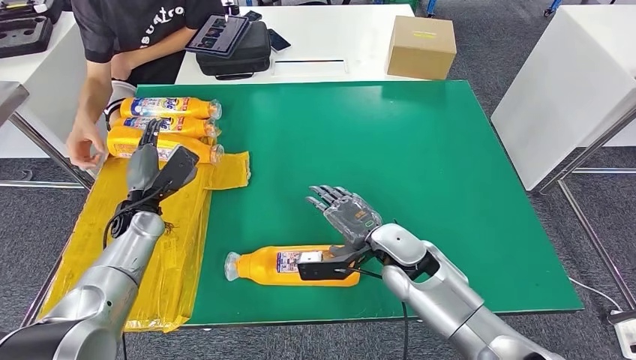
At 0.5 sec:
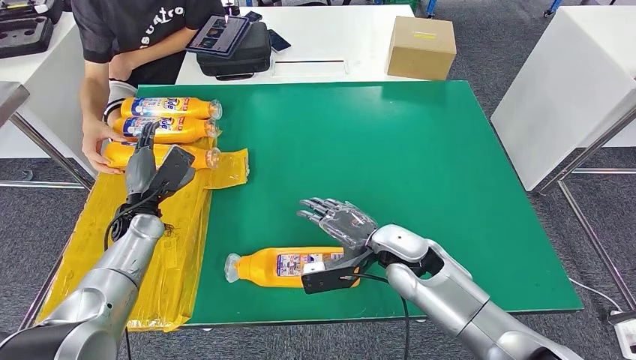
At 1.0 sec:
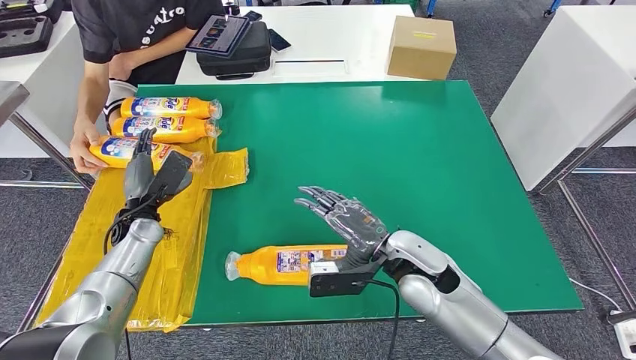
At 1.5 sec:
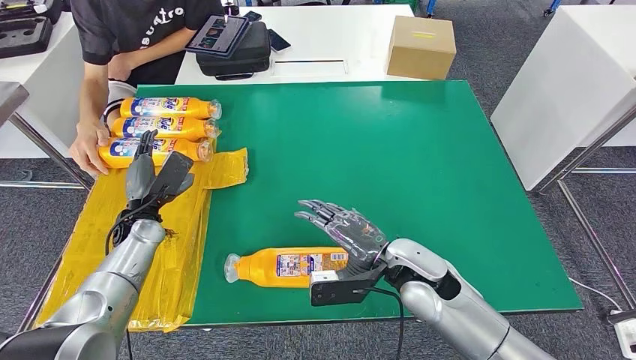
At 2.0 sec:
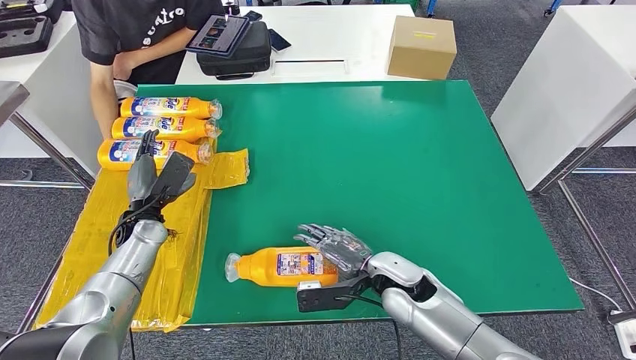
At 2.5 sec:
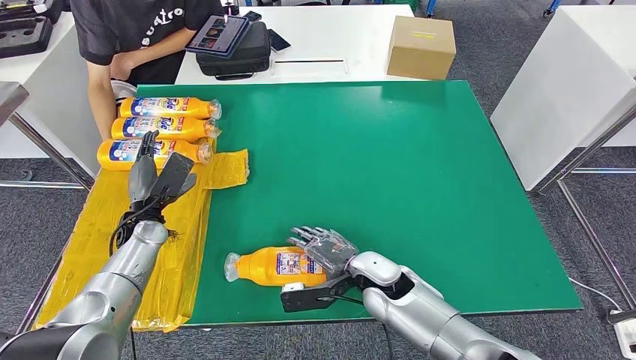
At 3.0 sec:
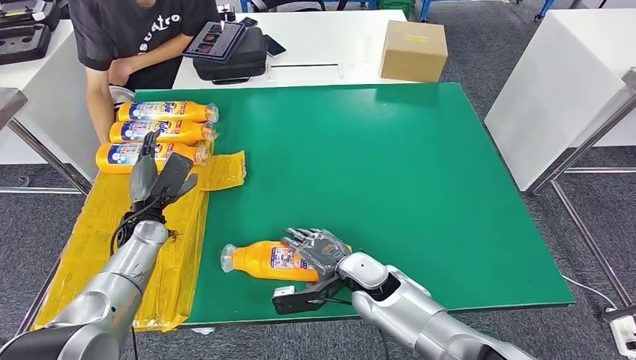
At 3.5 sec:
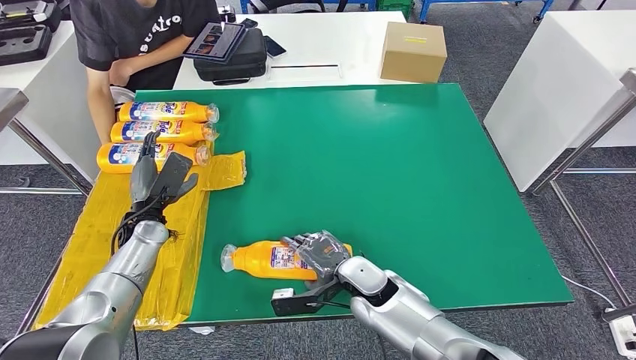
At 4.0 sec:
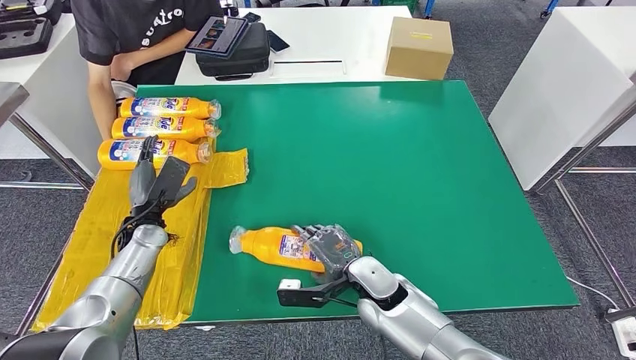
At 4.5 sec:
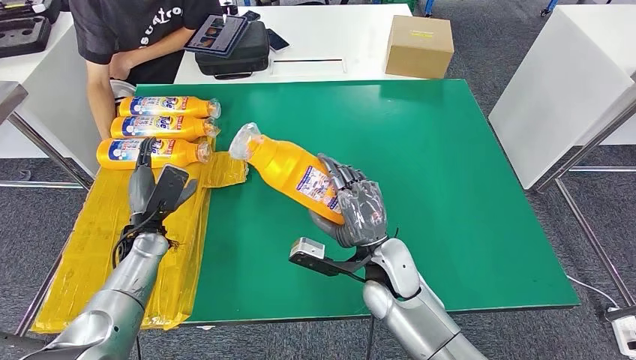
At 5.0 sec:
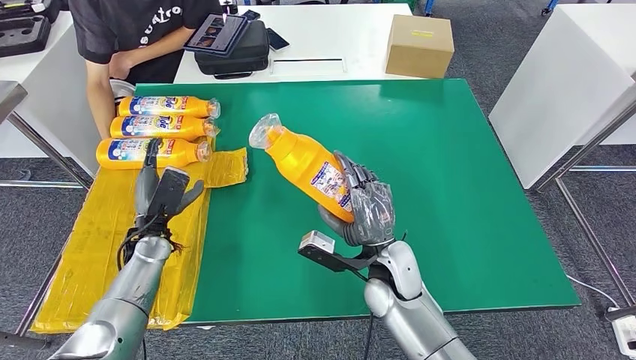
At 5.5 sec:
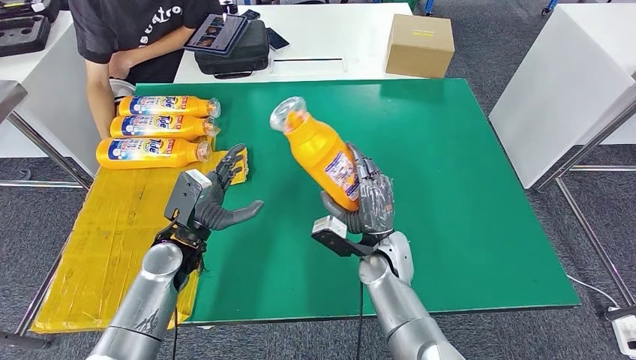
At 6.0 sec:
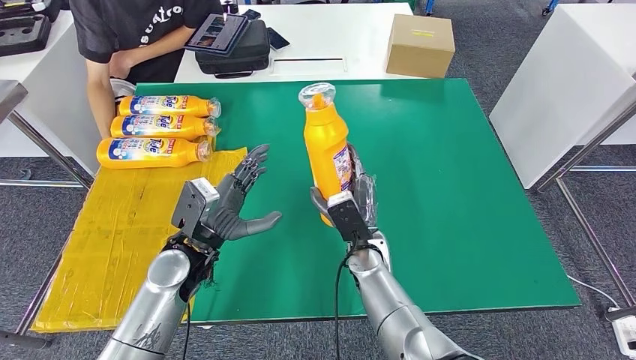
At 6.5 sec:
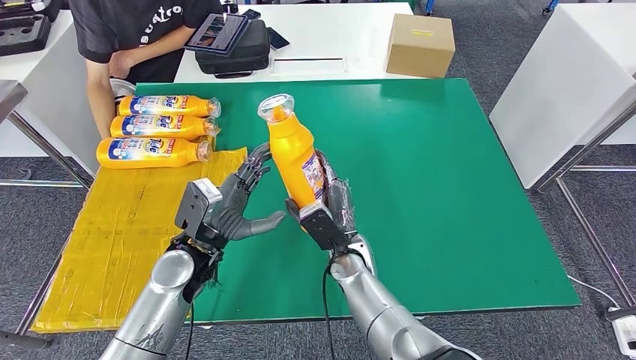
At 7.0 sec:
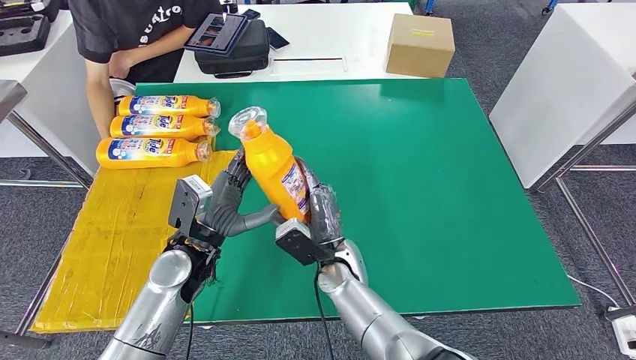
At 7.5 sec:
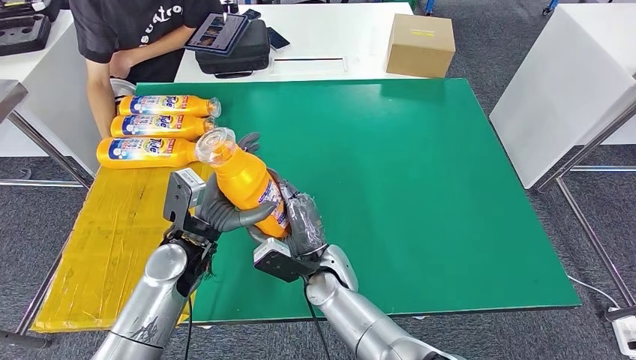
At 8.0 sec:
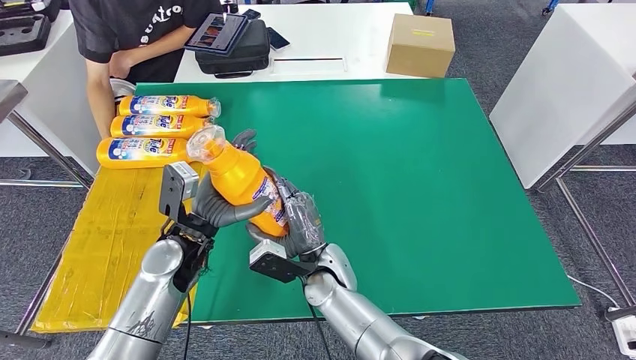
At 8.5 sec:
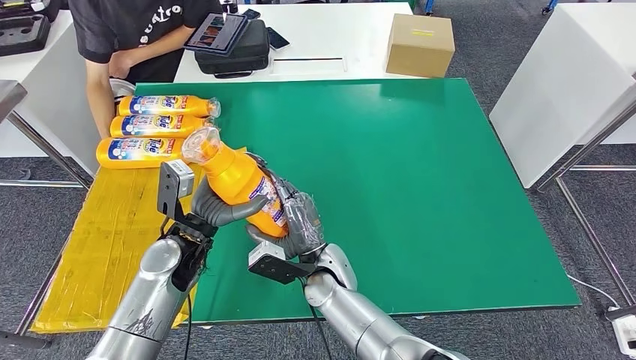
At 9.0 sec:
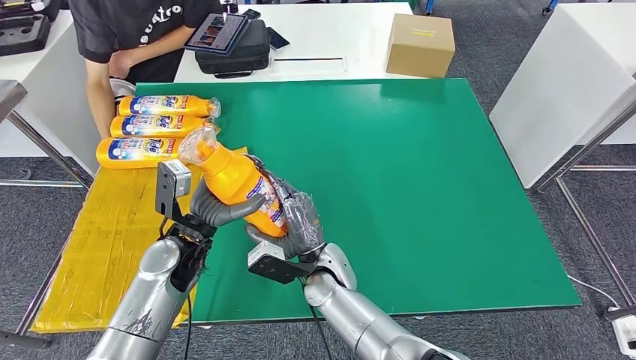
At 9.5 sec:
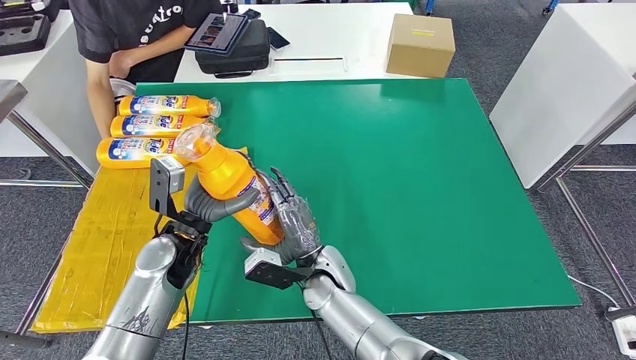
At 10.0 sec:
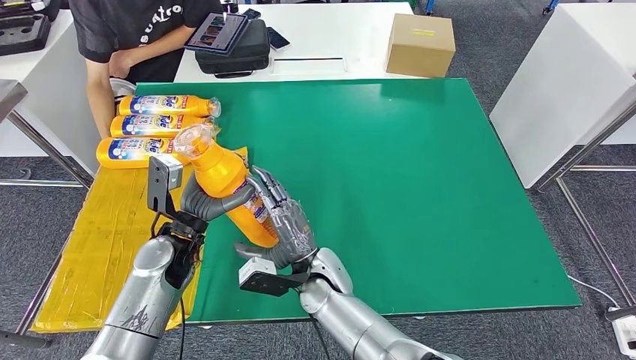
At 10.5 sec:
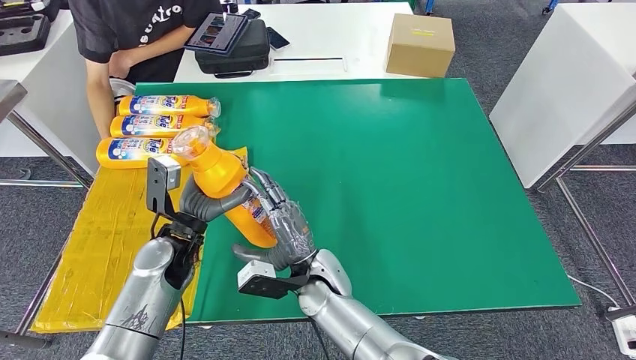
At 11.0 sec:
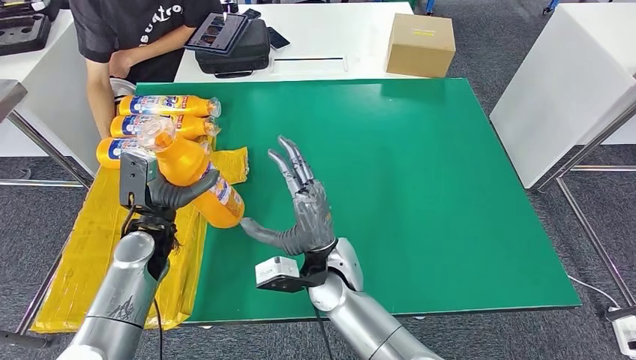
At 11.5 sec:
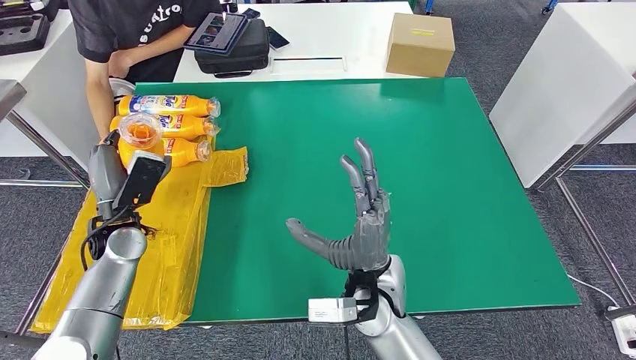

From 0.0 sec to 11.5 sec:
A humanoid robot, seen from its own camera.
Step, from 0.0 sec to 8.5 sec: Pick up the bottle from the table.
From 2.0 sec to 4.0 sec: The hands stay close to where they were, moving slightly.
From 6.0 sec to 7.5 sec: The right hand shifts about 10 cm to the left.
From 7.5 sec to 9.5 sec: There are only small adjustments of the hands.
From 9.5 sec to 11.5 sec: The left hand moves to the left, roughly 10 cm. The right hand shifts roughly 10 cm upward and to the right.

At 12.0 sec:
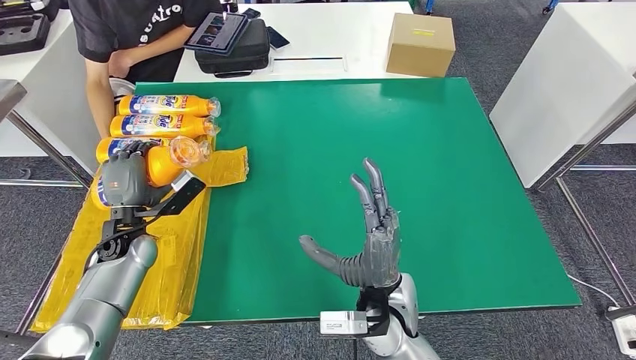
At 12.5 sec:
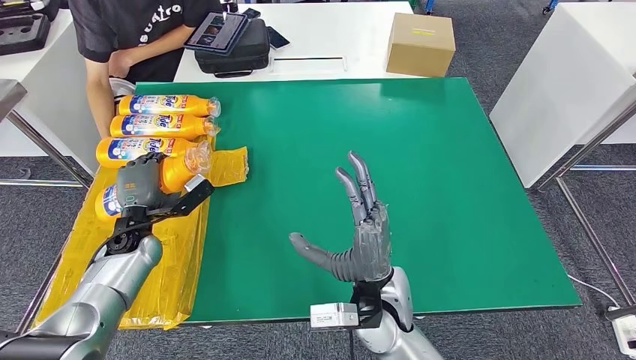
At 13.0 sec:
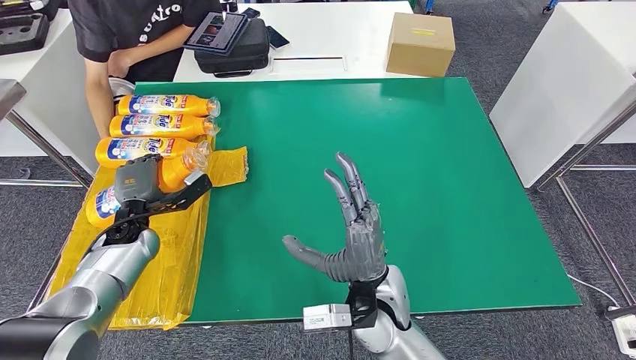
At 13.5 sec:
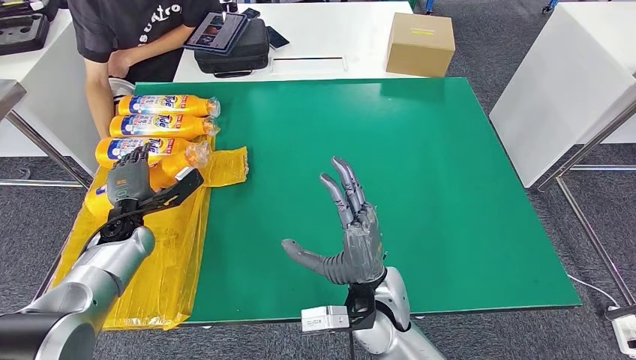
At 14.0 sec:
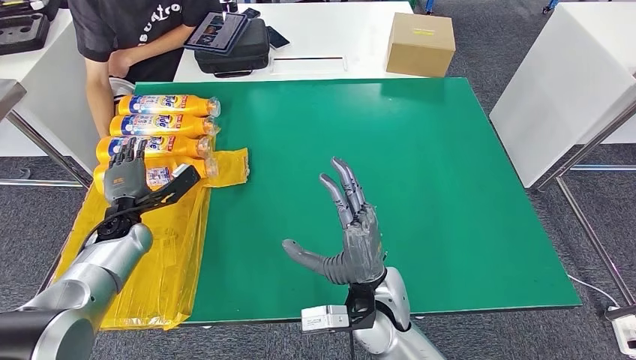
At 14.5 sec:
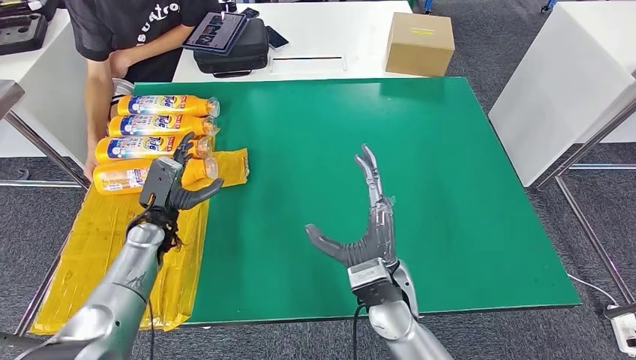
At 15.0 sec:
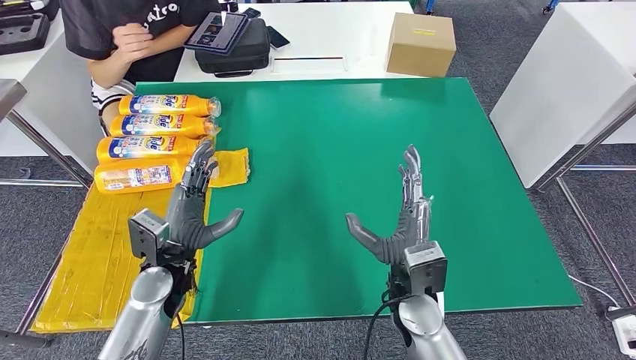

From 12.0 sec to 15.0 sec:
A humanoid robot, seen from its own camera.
Step, from 12.0 sec to 15.0 sec: Flip the bottle to face forward.
From 13.5 sec to 15.0 sec: The right hand is displaced to the right by some 5 cm. Meanwhile the left hand shifts roughly 15 cm to the right and backward.
